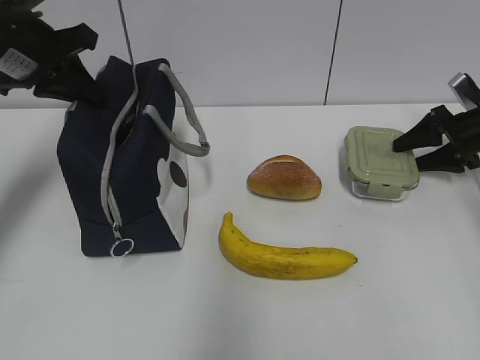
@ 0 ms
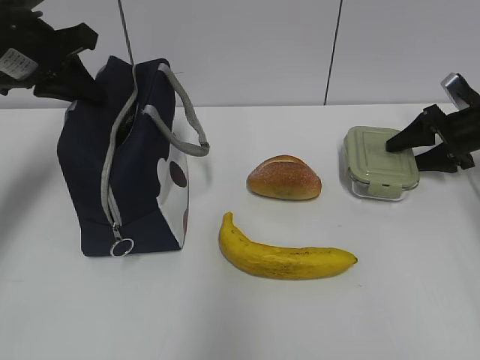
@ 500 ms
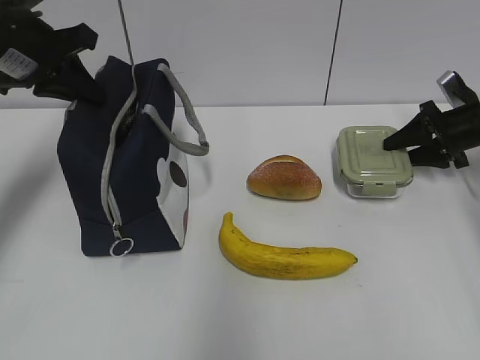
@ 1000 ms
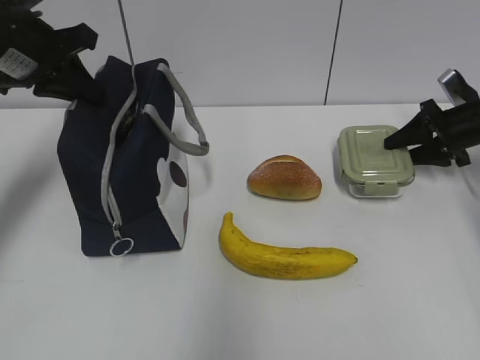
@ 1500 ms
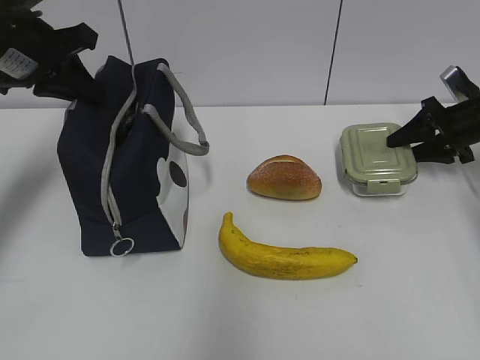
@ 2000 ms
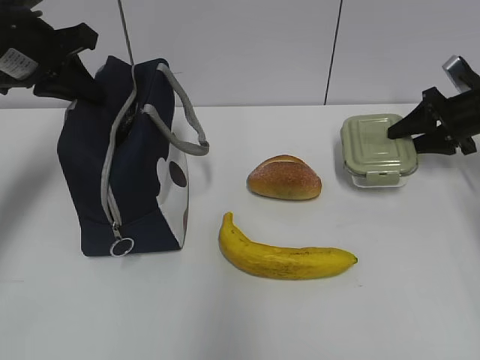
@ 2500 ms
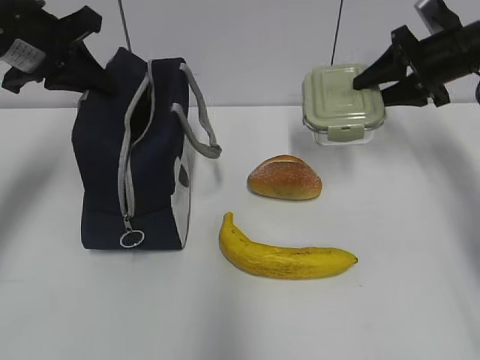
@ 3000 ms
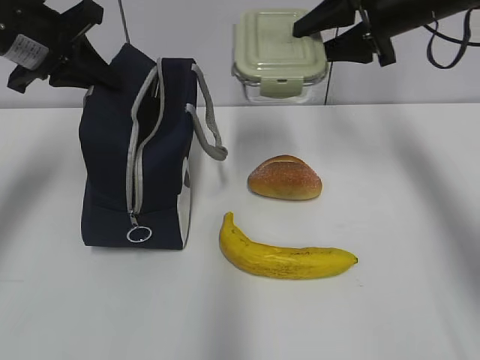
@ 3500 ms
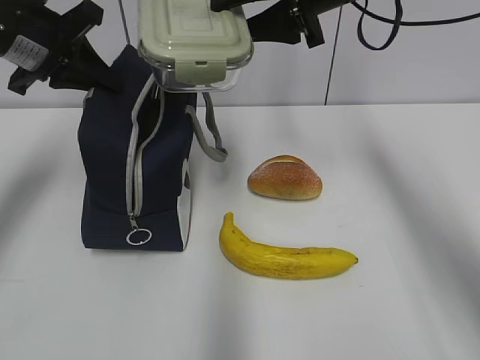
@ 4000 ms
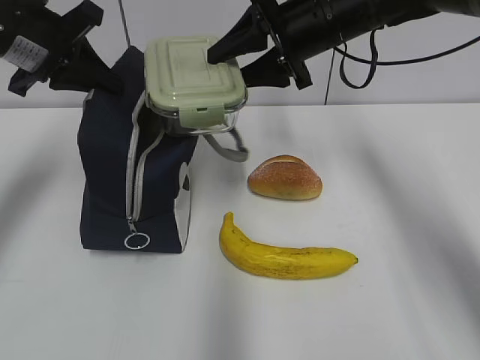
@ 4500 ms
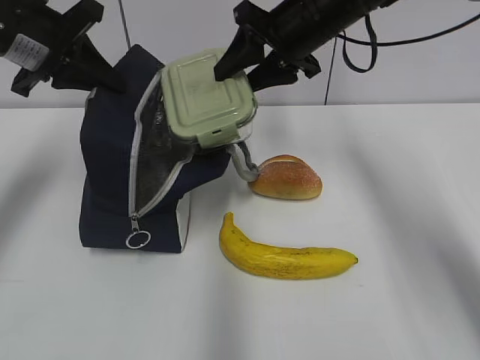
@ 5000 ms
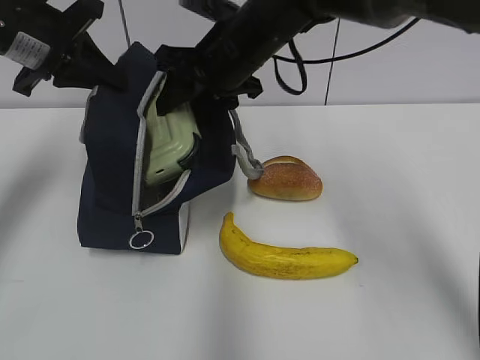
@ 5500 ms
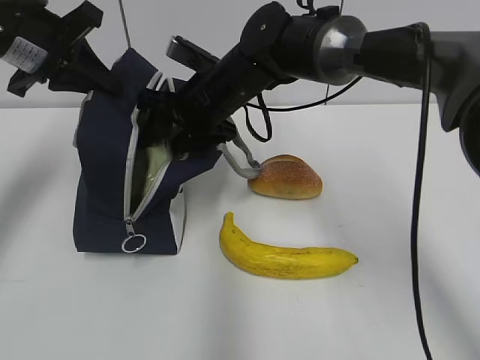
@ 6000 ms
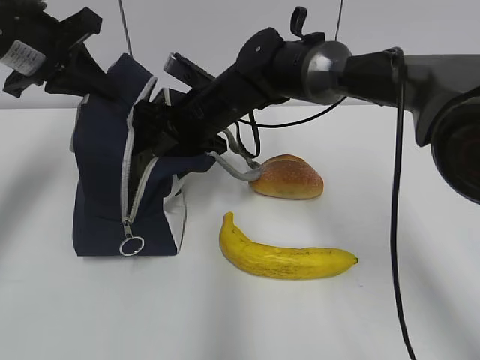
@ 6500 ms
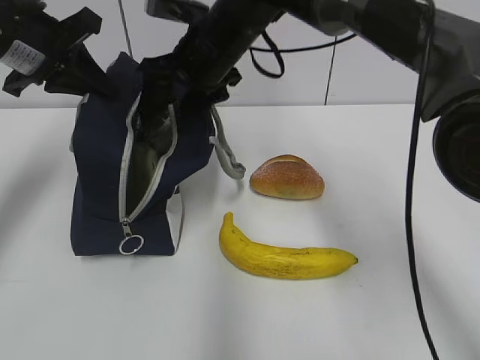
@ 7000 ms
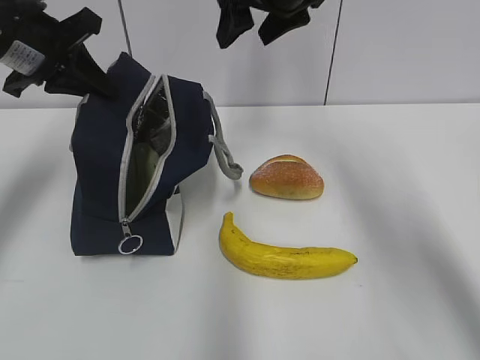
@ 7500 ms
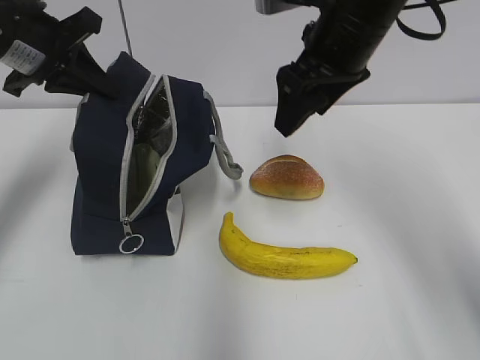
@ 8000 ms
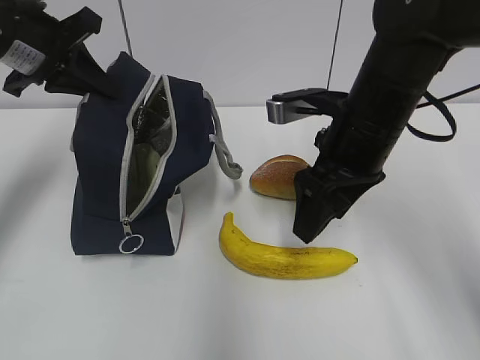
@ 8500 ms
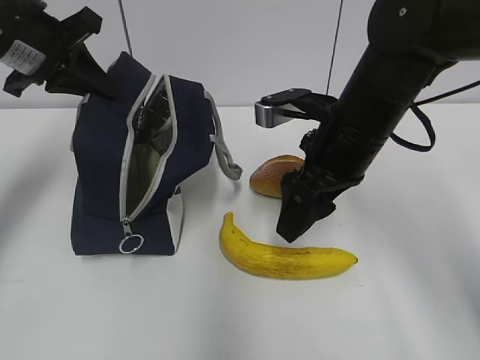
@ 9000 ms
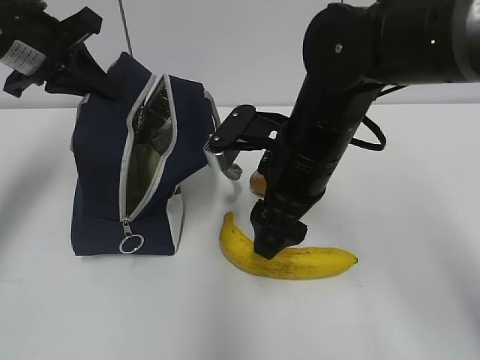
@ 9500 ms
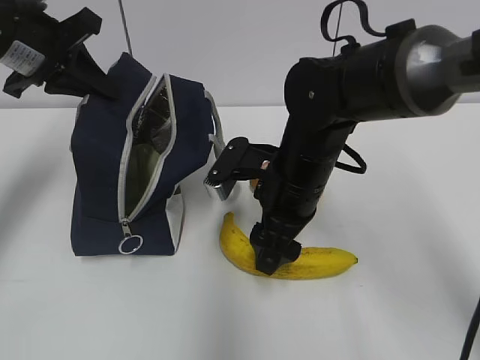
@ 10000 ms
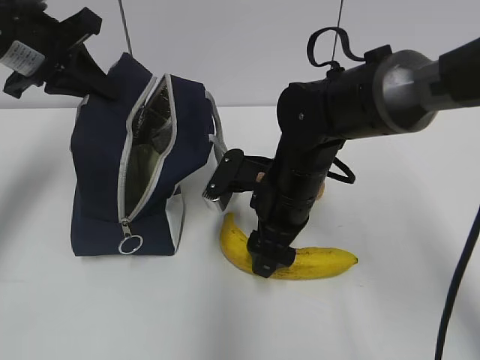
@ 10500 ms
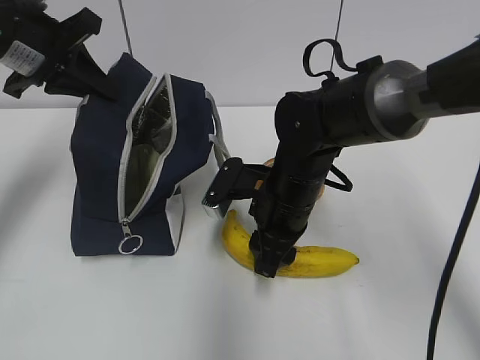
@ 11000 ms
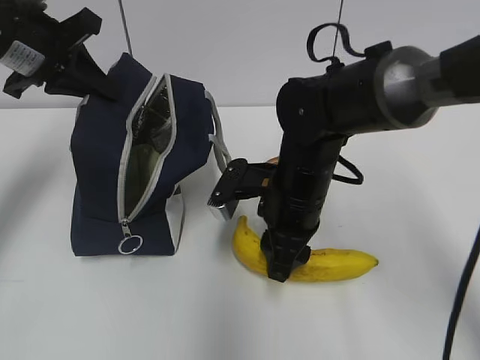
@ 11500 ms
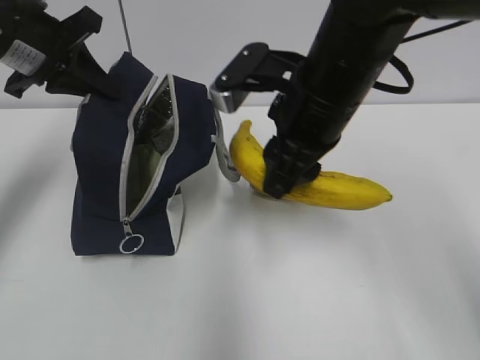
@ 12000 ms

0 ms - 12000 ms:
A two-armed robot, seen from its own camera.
Step, 7500 ms - 10500 ms: Grab the banana with your right hand.
0 ms - 2000 ms: The grippers make only small movements.
2000 ms - 4000 ms: The right gripper goes some 30 cm to the left and upward.
4000 ms - 6000 ms: The right gripper is displaced downward and to the left by some 20 cm.
6000 ms - 8000 ms: The right gripper shifts roughly 20 cm to the right, upward and backward.
8000 ms - 10000 ms: The right gripper moves downward, about 15 cm.
10000 ms - 12000 ms: The right gripper moves upward, roughly 10 cm, and closes.

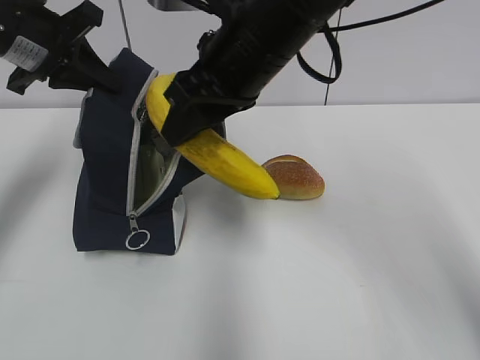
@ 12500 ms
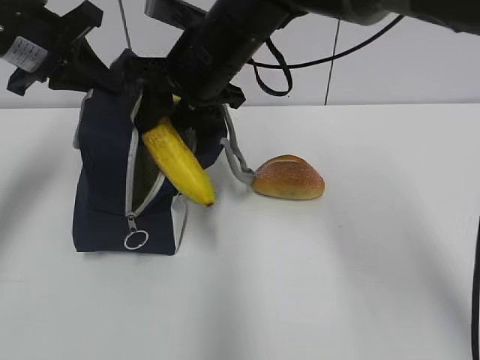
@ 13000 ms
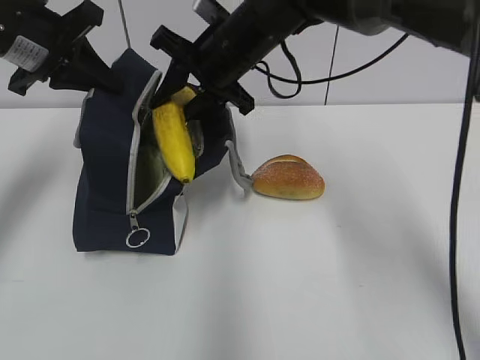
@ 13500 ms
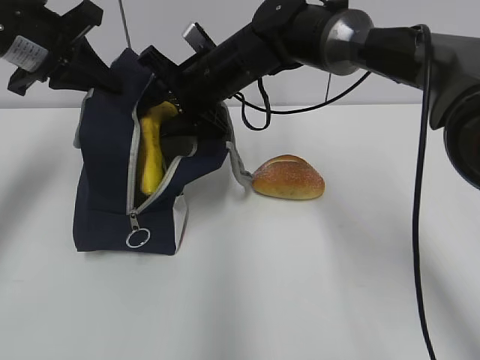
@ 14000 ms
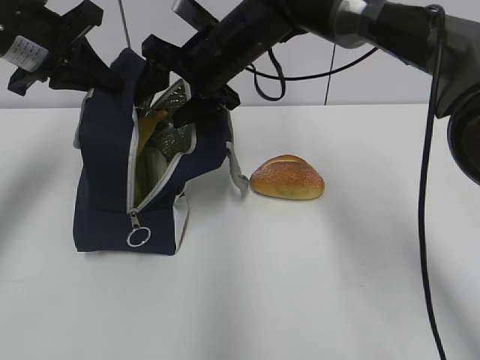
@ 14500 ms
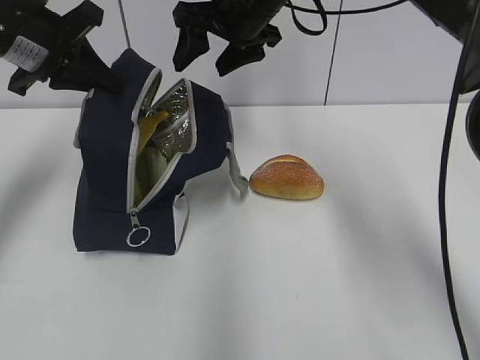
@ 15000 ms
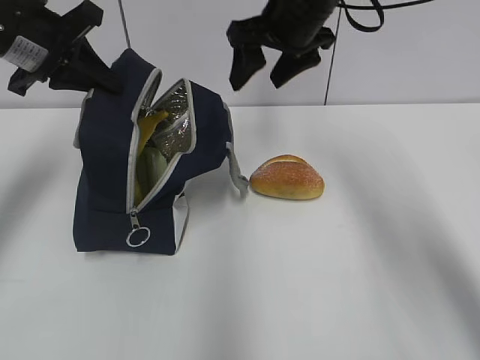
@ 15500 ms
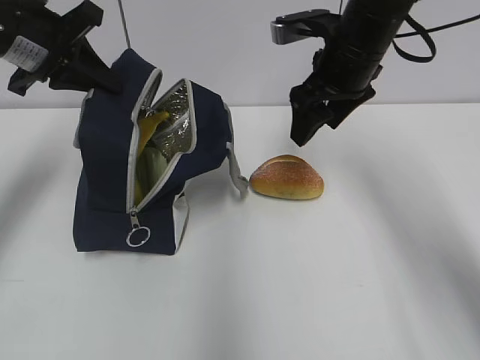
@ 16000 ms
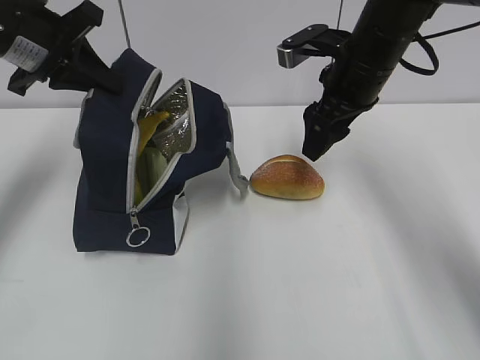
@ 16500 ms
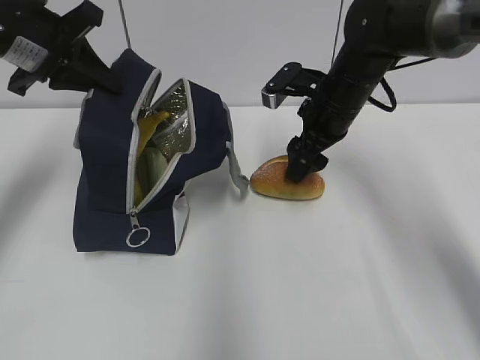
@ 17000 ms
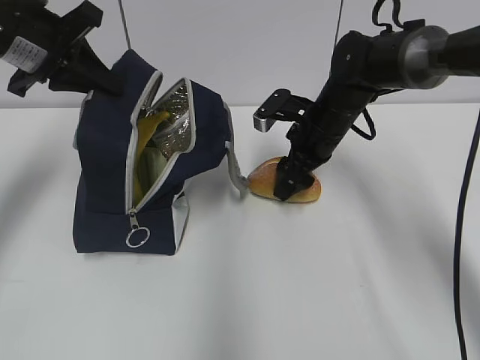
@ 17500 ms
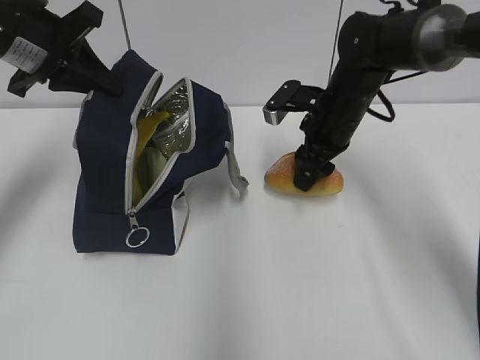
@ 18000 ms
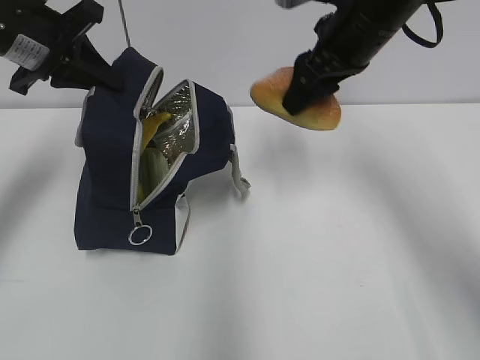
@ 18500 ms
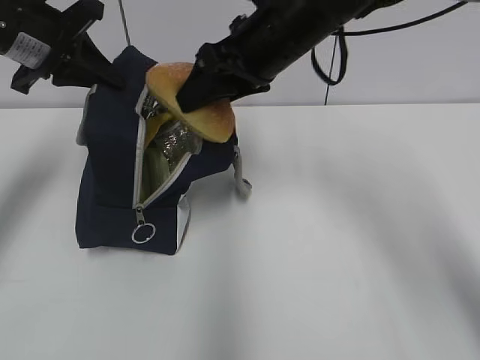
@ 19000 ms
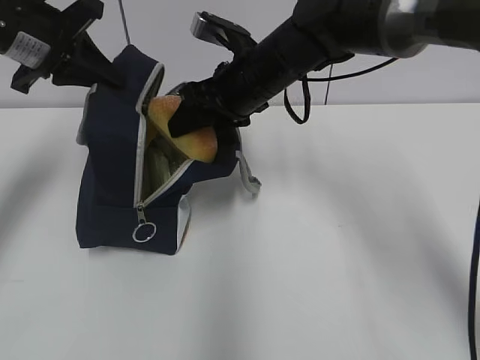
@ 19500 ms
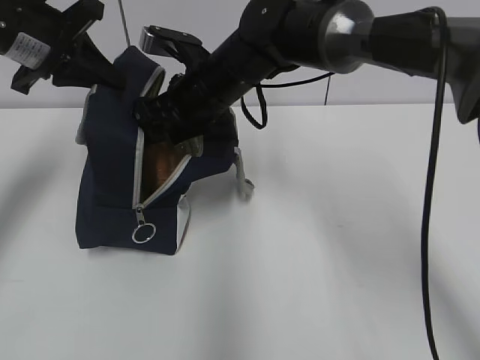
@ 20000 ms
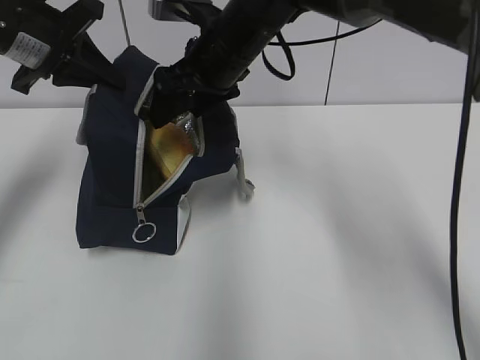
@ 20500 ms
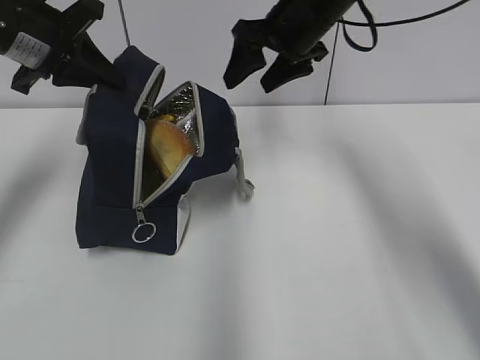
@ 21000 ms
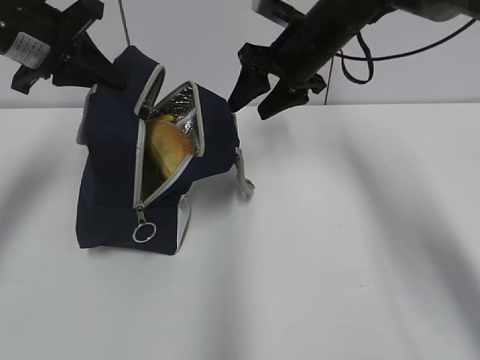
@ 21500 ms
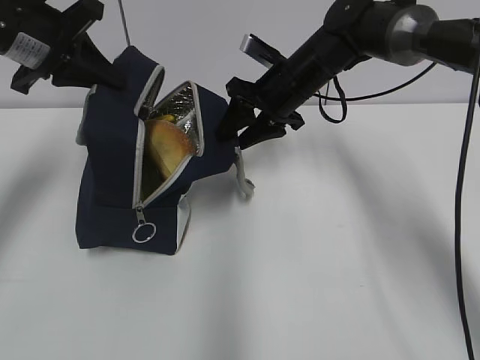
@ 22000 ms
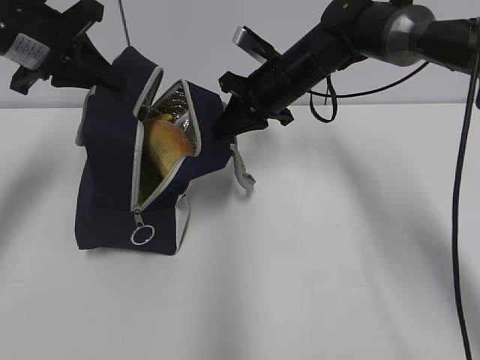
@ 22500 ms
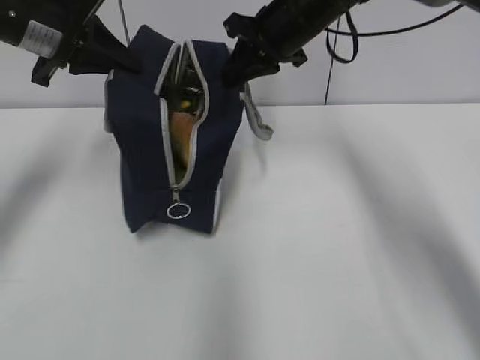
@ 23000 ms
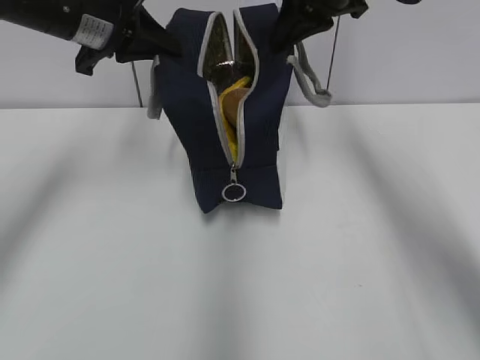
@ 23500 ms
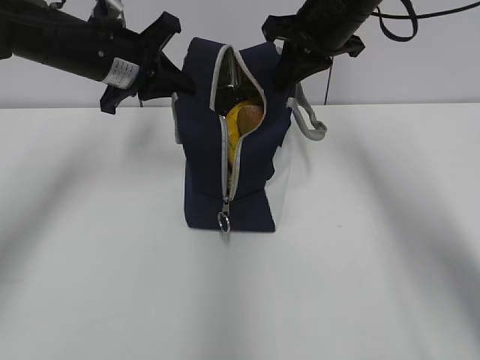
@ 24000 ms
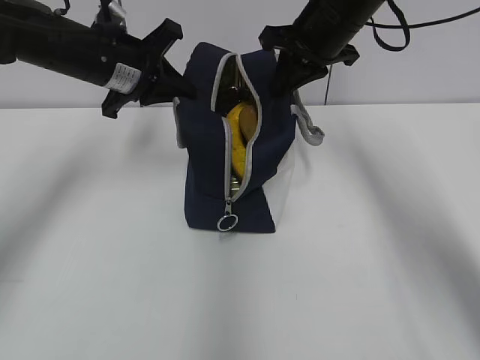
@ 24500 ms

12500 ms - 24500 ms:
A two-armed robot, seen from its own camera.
Step, 12500 ms - 14500 ms: Place it into the bag with your right hand.
Step, 15000 ms - 17500 ms: Grab the bread with your right hand.
Step, 18000 ms - 20500 ms: Place it into the bag with your right hand.
Step, 21000 ms - 22500 ms: Grab the lunch bag with your right hand.
Step, 23500 ms - 24000 ms: Move the lunch bag to the right.
12500 ms - 14500 ms: The right gripper moves forward and downward, approximately 15 cm, and opens its fingers.
14500 ms - 16500 ms: The right gripper goes roughly 15 cm to the right.
16500 ms - 18500 ms: The right gripper travels downward and back again, approximately 10 cm each way.
18500 ms - 20500 ms: The right gripper goes about 15 cm to the left.
20500 ms - 22500 ms: The right gripper goes some 10 cm to the right and downward, and closes its fingers.
22500 ms - 24500 ms: The left gripper moves to the right and downward, about 10 cm; the right gripper goes roughly 10 cm upward.

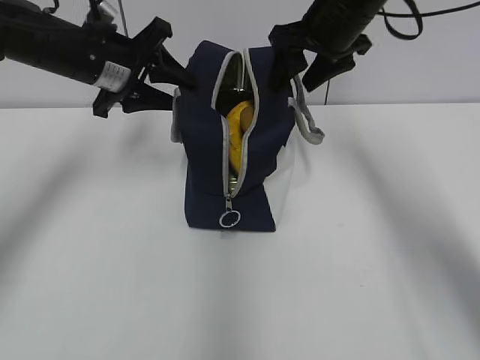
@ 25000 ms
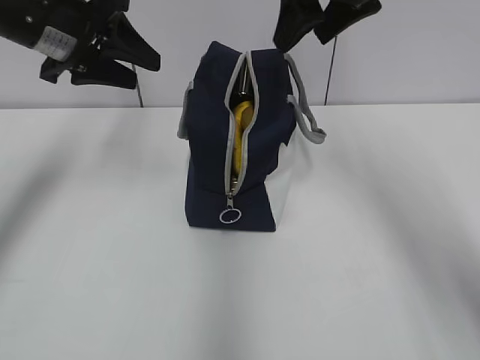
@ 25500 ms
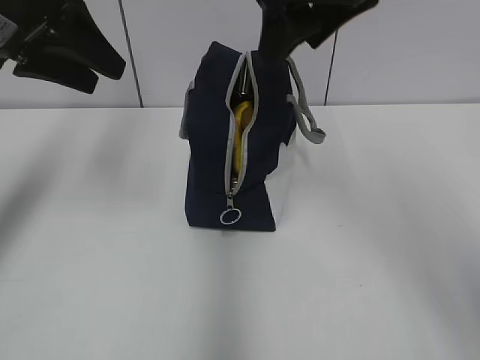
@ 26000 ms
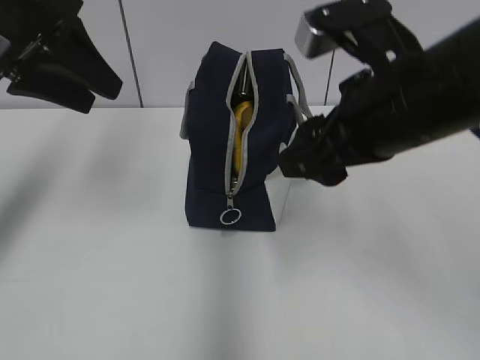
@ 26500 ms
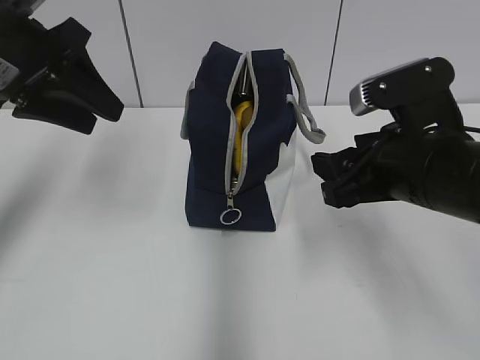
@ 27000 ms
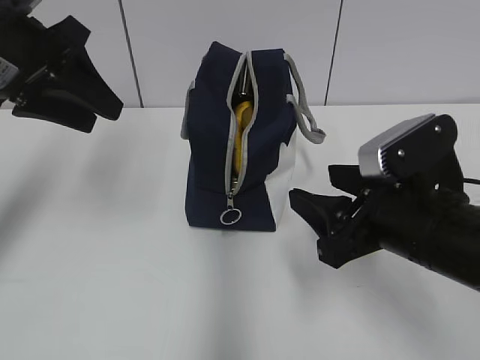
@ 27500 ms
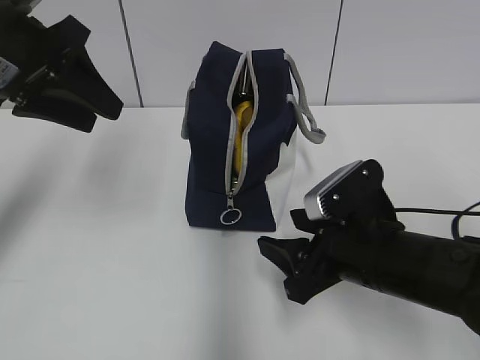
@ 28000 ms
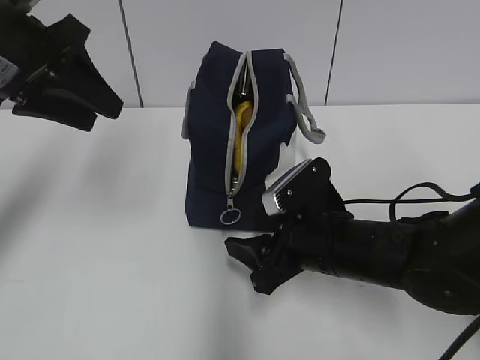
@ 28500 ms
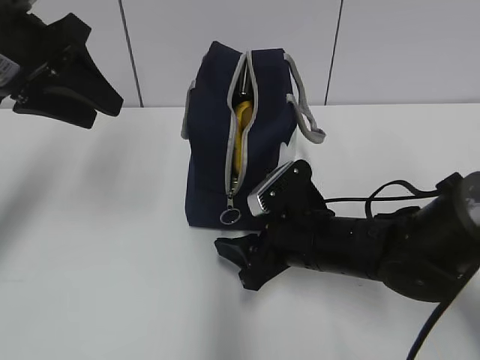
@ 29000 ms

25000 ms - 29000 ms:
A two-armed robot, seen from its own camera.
25000 ms - 27000 ms: The right gripper travels backward by some 20 cm. The left gripper heads backward and upward, covering about 10 cm.
27000 ms - 29000 ms: The right gripper heads downward and to the left, covering about 15 cm.
